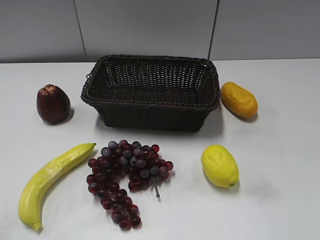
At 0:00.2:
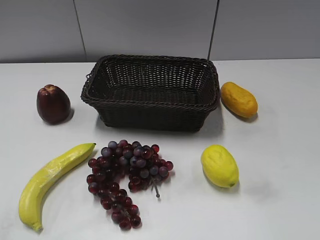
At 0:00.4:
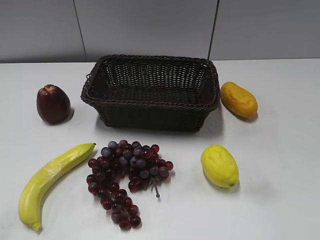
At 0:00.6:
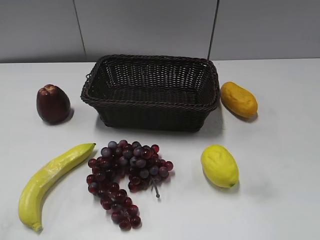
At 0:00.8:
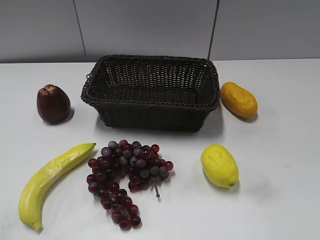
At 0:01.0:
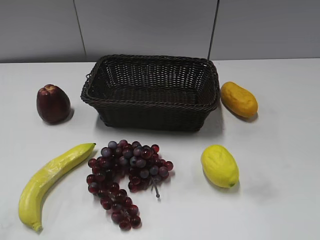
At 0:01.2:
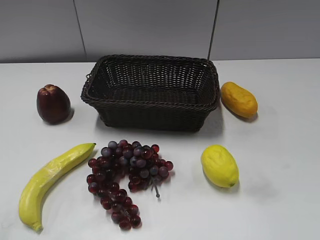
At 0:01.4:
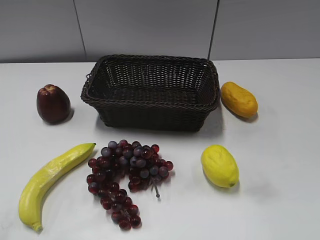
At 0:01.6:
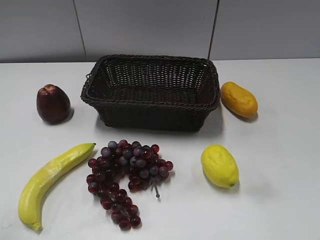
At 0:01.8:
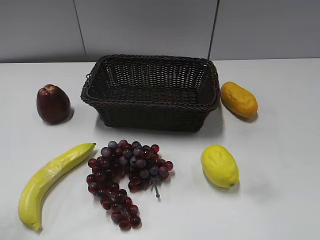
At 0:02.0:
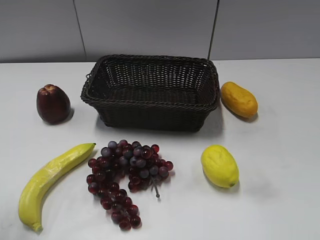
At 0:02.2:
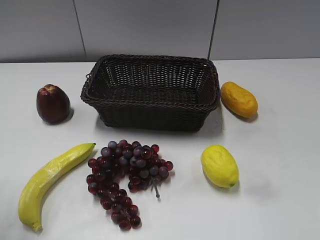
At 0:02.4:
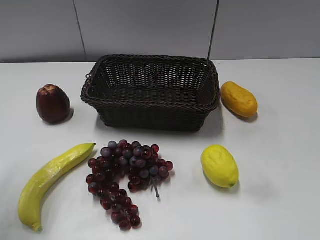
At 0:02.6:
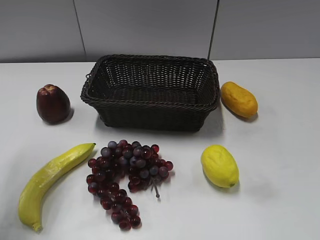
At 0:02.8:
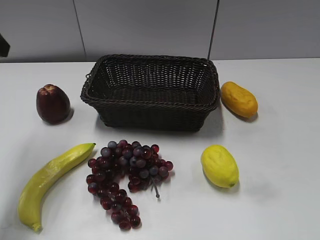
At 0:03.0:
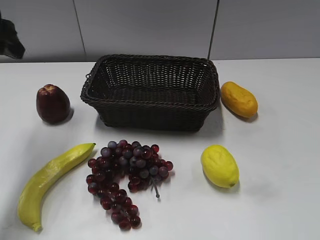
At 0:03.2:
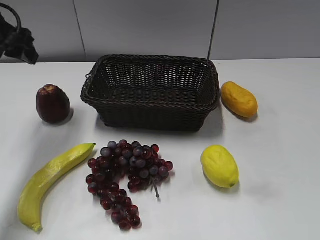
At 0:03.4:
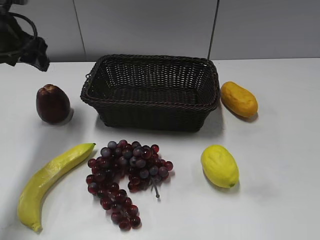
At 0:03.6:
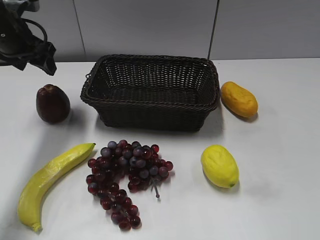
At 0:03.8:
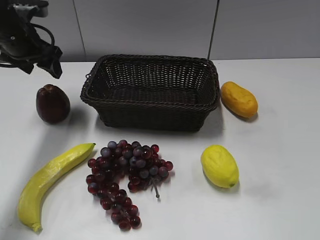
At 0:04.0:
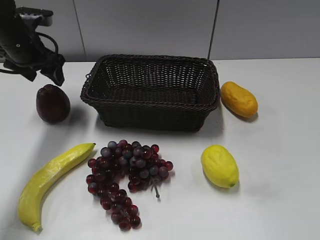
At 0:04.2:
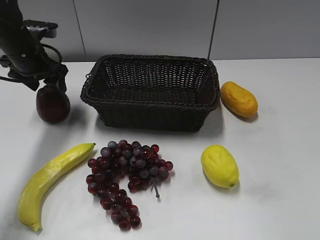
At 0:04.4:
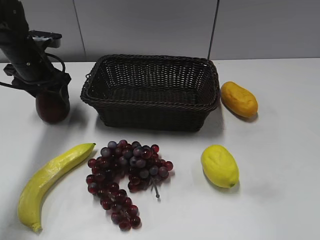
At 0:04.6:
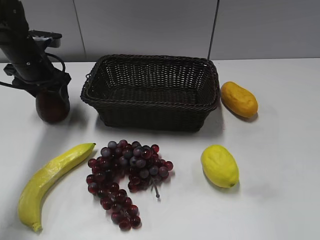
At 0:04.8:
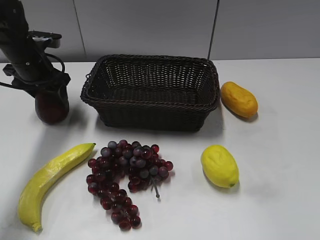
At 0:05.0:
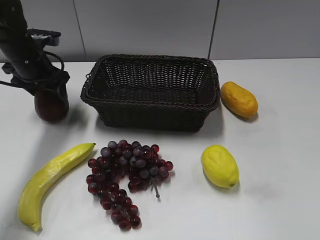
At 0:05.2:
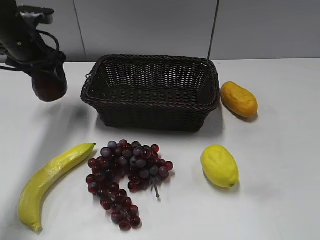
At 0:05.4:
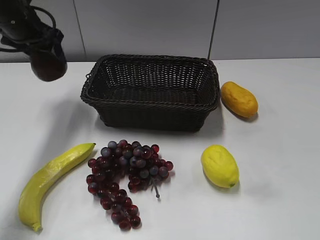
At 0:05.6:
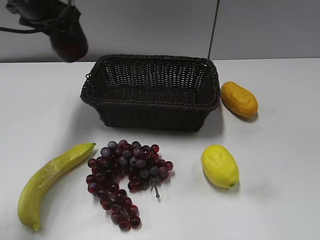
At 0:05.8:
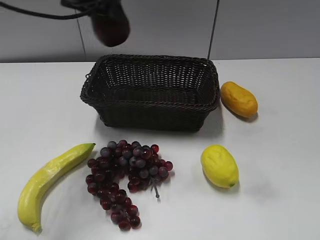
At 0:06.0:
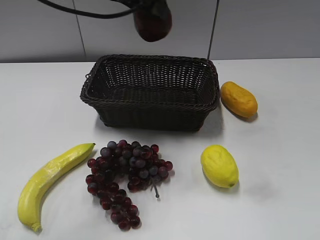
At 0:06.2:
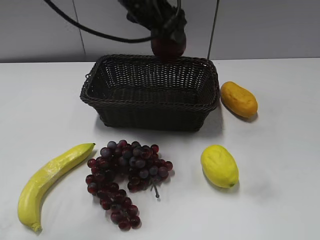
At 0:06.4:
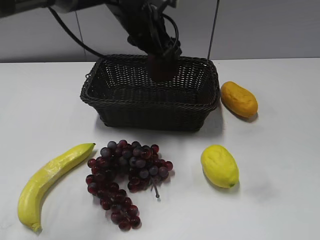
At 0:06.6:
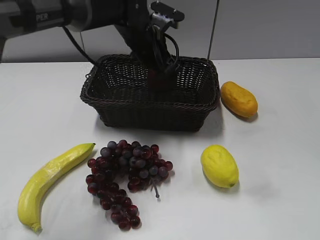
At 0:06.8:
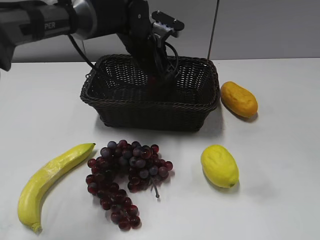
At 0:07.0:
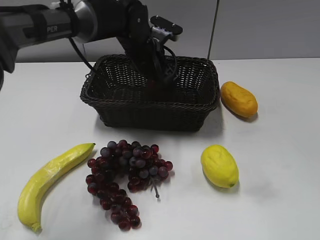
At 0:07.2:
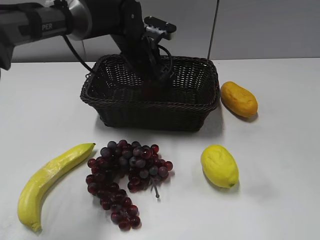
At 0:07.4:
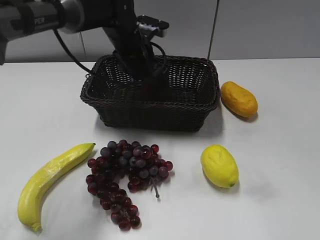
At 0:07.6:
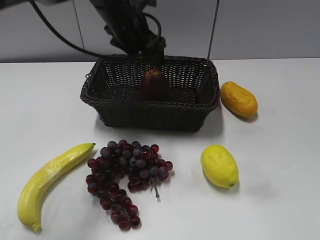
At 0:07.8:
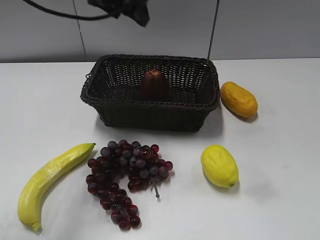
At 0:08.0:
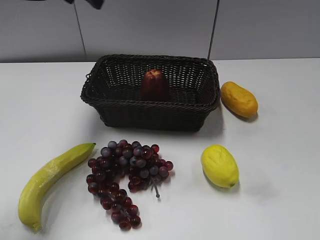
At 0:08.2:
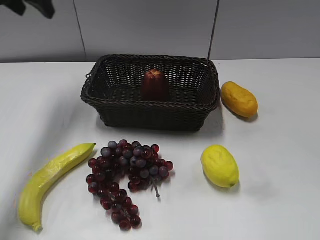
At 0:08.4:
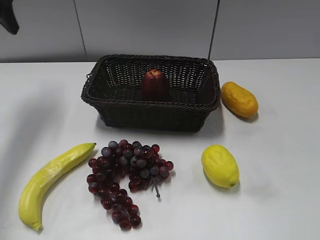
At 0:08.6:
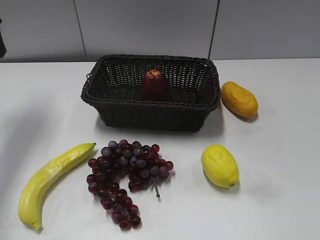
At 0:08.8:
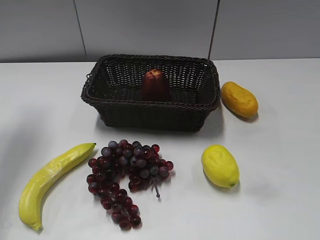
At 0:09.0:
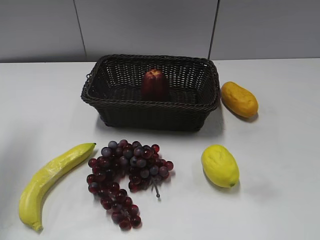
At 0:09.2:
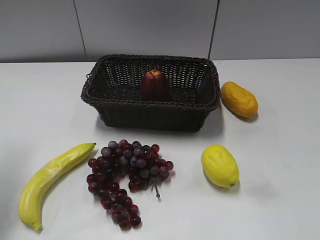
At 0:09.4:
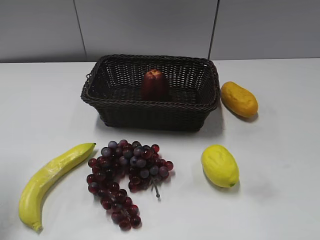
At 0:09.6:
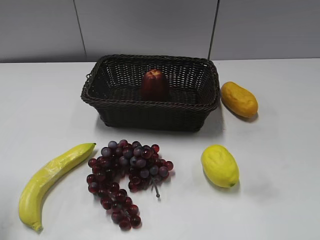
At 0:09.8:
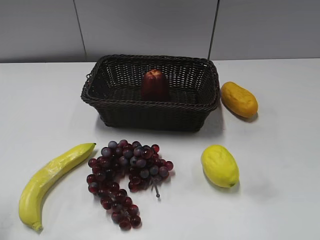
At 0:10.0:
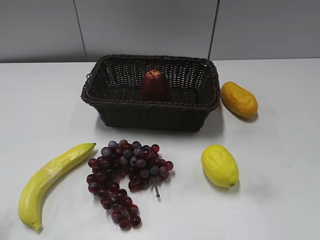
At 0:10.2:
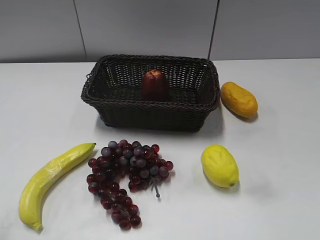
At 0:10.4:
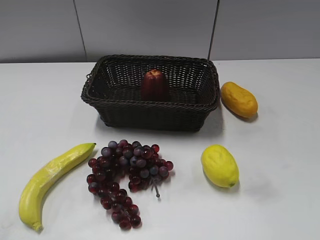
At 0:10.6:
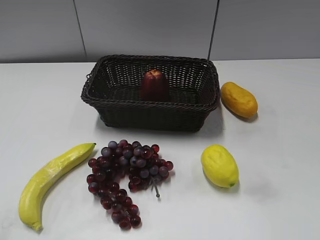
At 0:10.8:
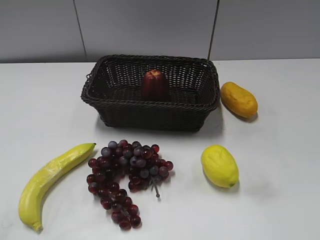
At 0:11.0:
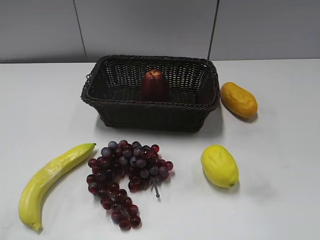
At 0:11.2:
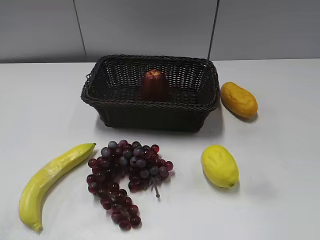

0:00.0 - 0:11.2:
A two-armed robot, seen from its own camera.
Step, 0:02.8 - 0:04.6: Grasp the apple with left gripper.
Step, 0:04.8 - 0:07.2: Place the apple in the basket with left gripper.
0:01.6 - 0:03.2: The left gripper heads forward, covering roughly 30 cm, and opens.
0:03.2 - 0:04.8: The left gripper heads downward and forward, covering roughly 15 cm.
0:04.8 - 0:06.4: The left gripper heads to the right, covering approximately 25 cm.
0:06.4 - 0:08.0: The left gripper goes approximately 20 cm to the left and upward, and opens, then closes once more.
0:08.0 - 0:09.6: The left gripper moves backward and to the left, approximately 30 cm.

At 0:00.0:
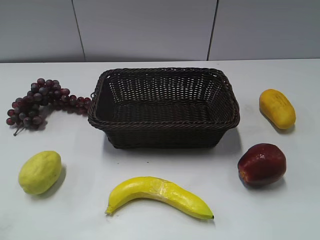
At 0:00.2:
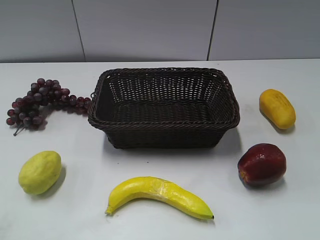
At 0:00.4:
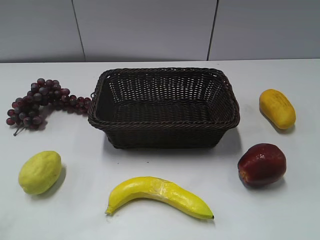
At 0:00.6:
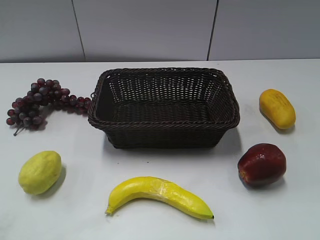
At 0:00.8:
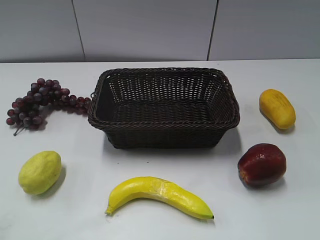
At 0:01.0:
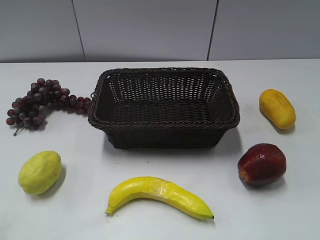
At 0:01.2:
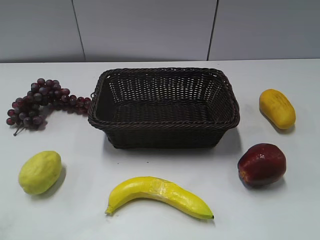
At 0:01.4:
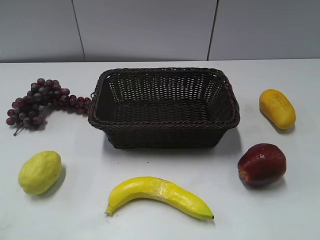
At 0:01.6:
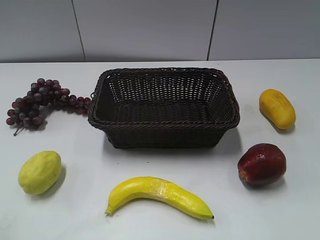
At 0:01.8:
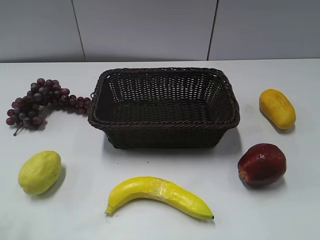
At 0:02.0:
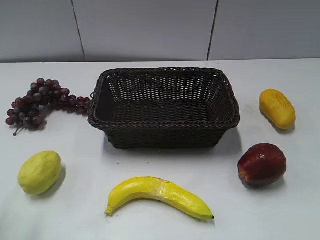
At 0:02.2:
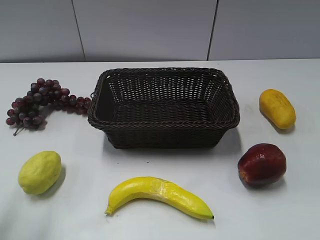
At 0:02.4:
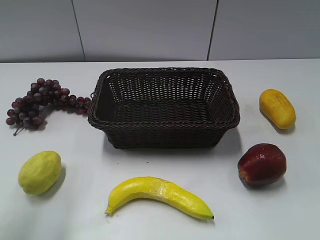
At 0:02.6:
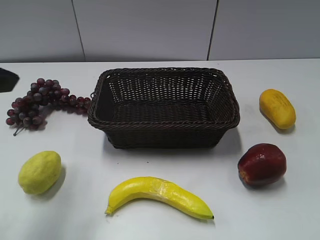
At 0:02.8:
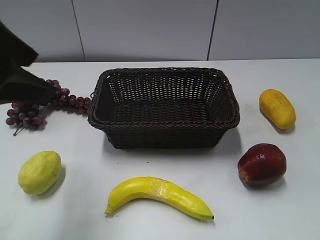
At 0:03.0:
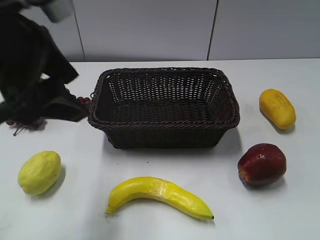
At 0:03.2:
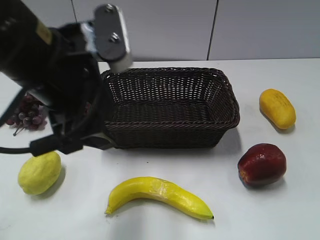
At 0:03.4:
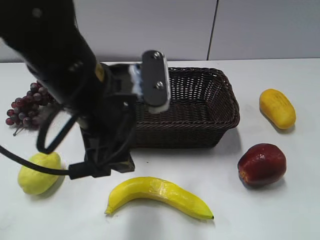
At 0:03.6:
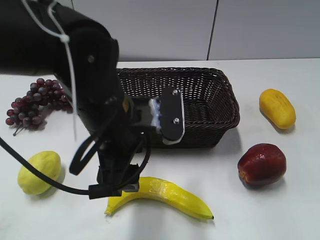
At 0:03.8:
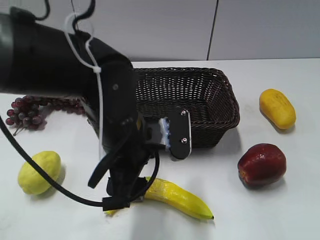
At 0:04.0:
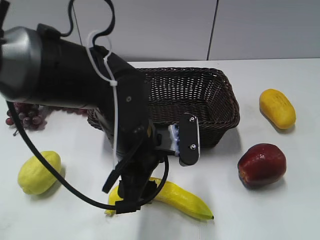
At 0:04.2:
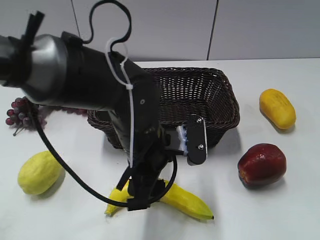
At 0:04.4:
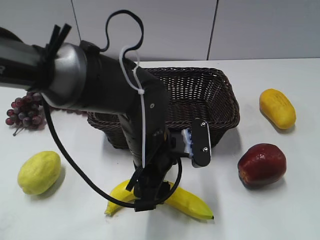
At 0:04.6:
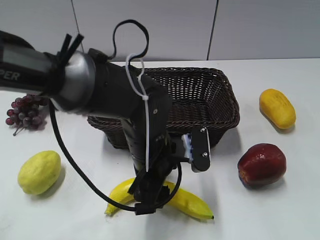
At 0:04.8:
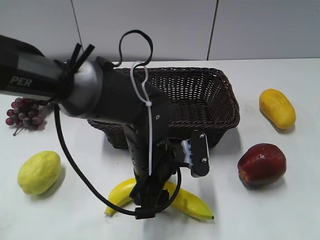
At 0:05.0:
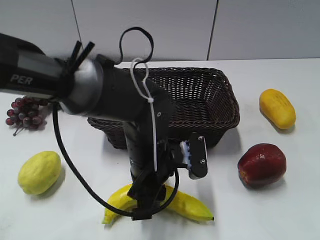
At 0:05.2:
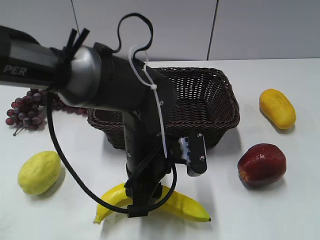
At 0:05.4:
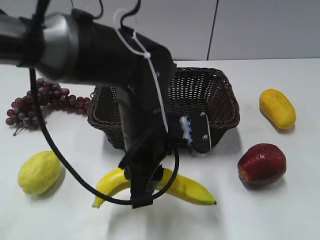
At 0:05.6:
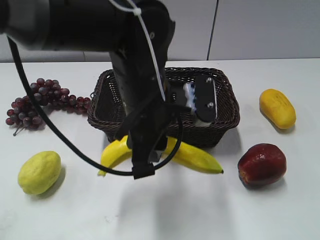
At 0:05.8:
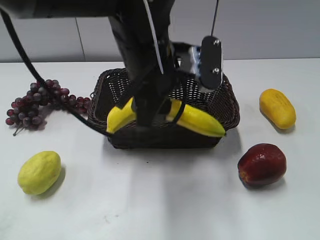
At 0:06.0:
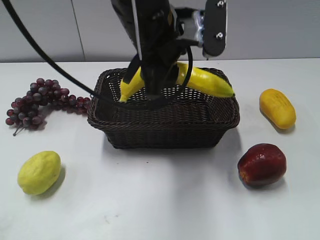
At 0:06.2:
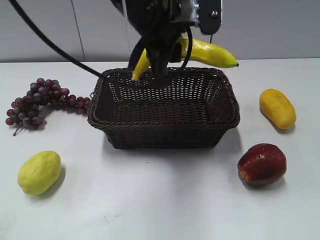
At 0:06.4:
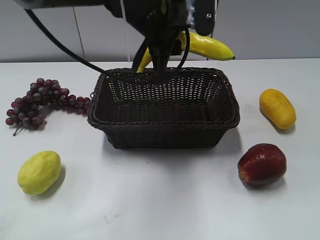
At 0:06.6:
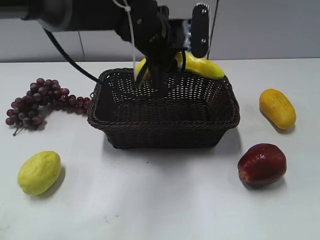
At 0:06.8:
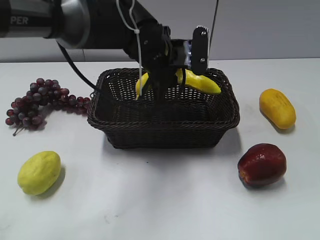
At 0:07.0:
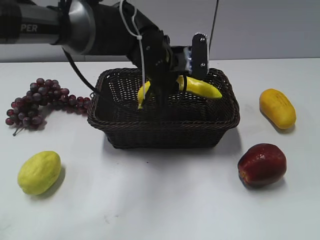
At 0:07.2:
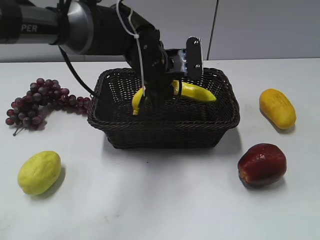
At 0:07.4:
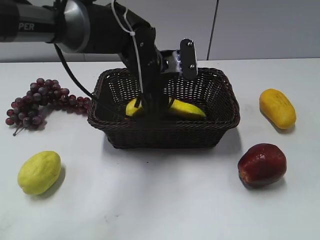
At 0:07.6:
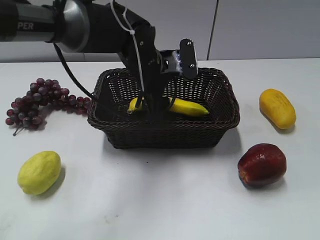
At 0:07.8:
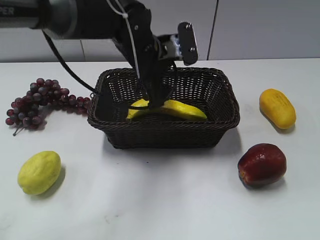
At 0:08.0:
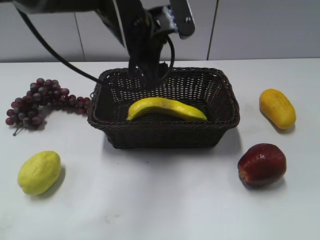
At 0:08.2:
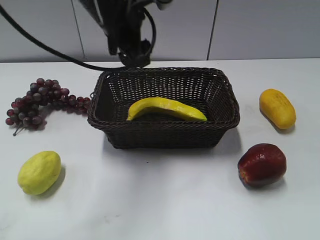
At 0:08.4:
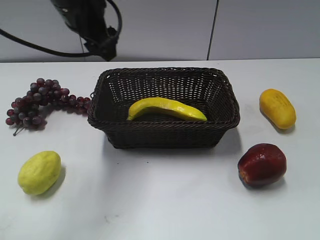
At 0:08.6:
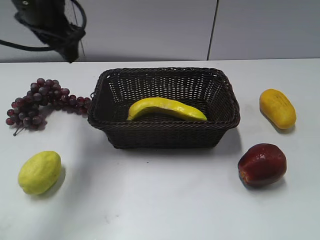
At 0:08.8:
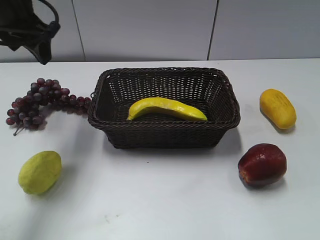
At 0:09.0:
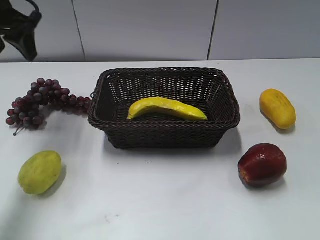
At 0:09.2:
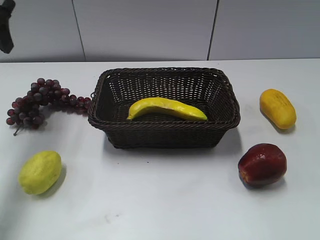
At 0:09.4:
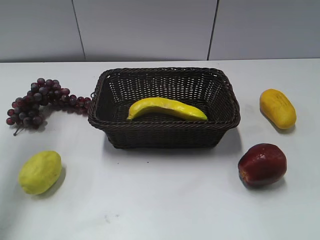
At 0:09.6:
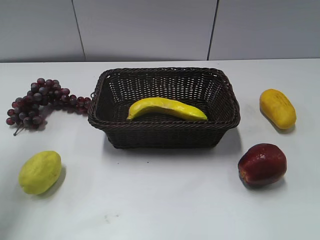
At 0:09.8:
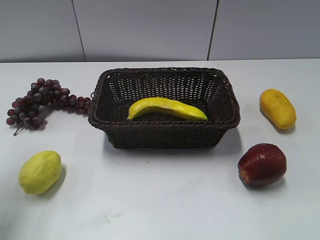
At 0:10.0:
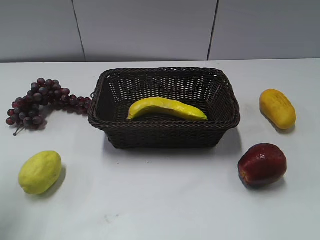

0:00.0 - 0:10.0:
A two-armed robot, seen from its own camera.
Step, 0:02.6 - 0:05.4: Grasp the banana with left gripper.
Step, 0:05.6 - 0:07.6: Place the banana in the basket with left gripper.
0:01.4 - 0:02.8: The left gripper travels forward and to the right by approximately 20 cm.
0:02.8 - 0:04.2: The left gripper is displaced downward and to the right by approximately 25 cm.
0:04.2 - 0:05.8: The left gripper shifts roughly 10 cm upward, and closes up.
0:05.8 - 0:07.2: The left gripper shifts some 15 cm forward and downward.
0:07.2 - 0:08.6: The left gripper moves to the left and upward, about 20 cm, and opens up.
0:08.6 - 0:10.0: The left gripper heads backward and to the left, covering roughly 20 cm.

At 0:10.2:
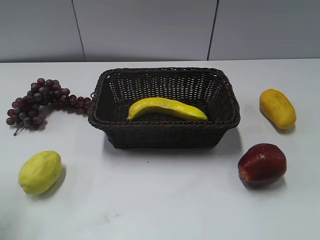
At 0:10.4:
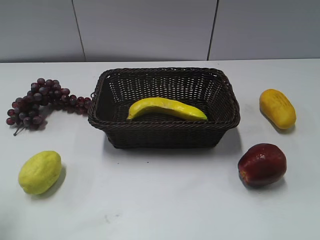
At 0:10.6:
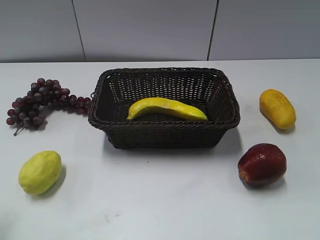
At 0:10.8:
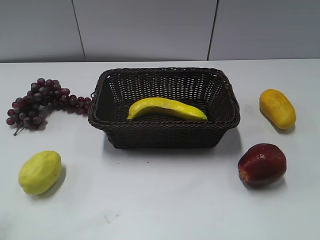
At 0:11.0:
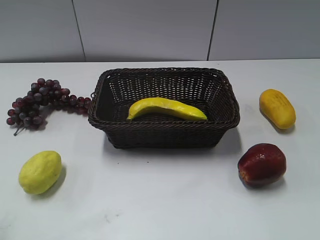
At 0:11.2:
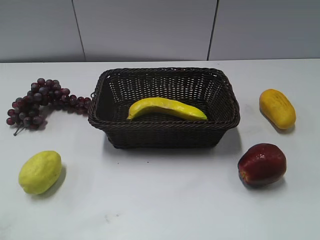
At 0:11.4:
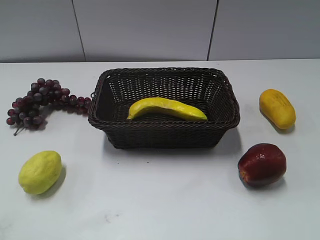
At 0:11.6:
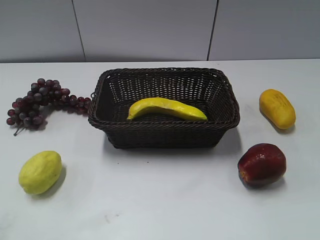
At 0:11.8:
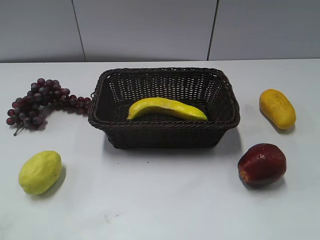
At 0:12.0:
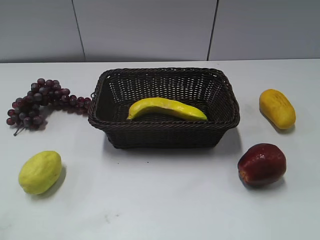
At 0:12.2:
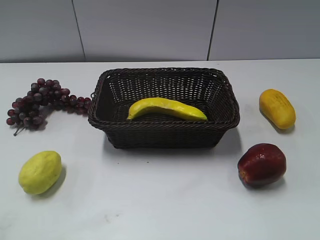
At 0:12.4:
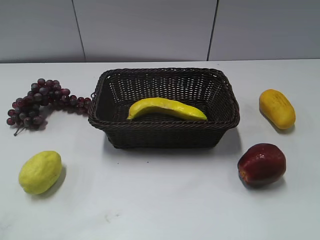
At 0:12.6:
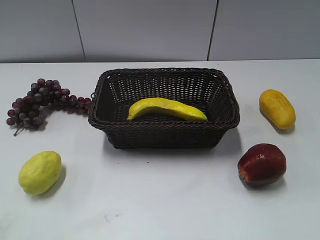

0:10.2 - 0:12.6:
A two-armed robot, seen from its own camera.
0:10.2 - 0:11.4: The left gripper heads backward, covering about 10 cm.
